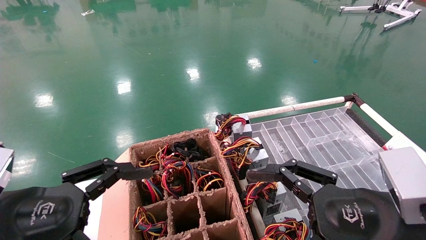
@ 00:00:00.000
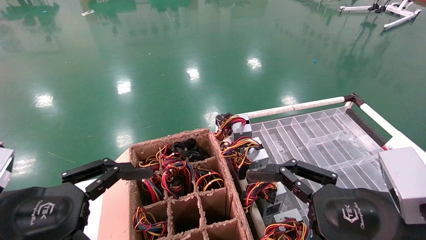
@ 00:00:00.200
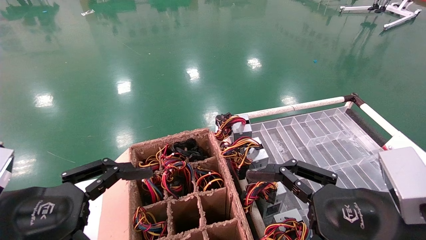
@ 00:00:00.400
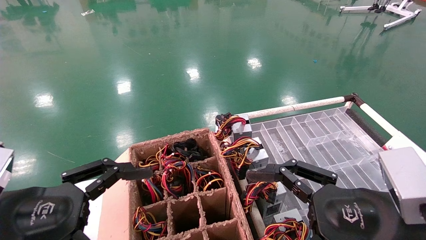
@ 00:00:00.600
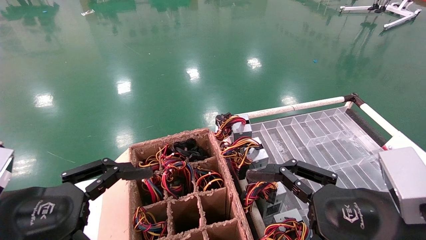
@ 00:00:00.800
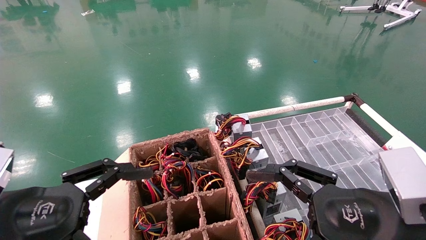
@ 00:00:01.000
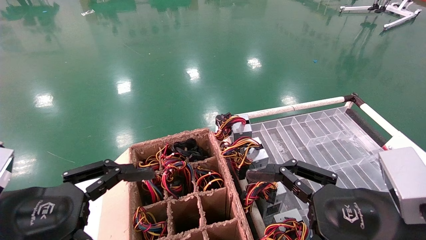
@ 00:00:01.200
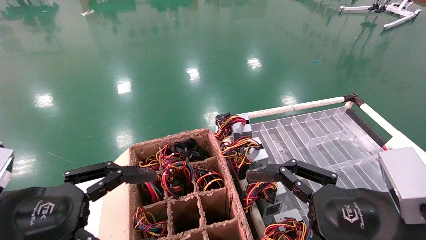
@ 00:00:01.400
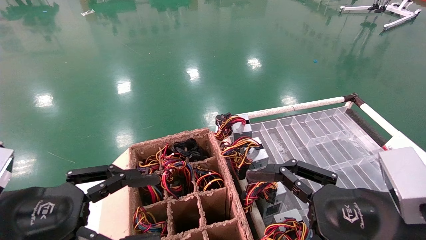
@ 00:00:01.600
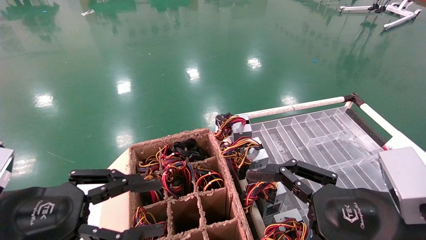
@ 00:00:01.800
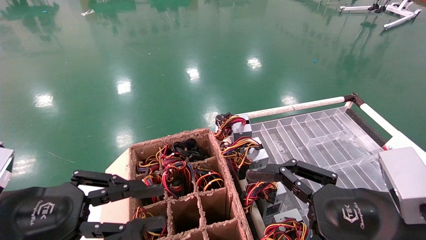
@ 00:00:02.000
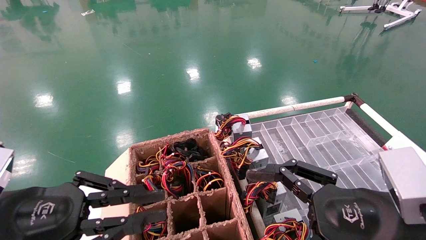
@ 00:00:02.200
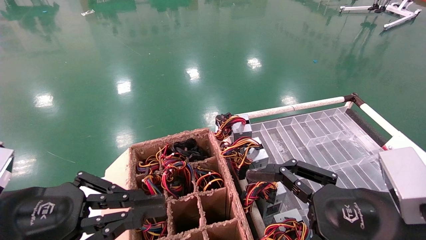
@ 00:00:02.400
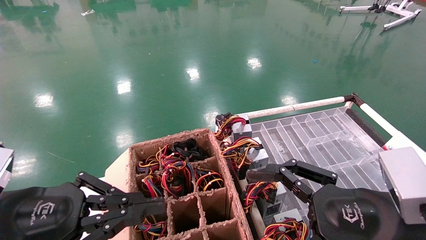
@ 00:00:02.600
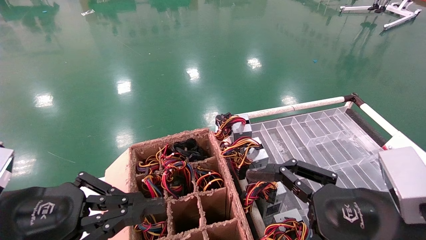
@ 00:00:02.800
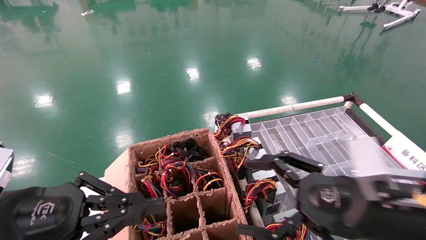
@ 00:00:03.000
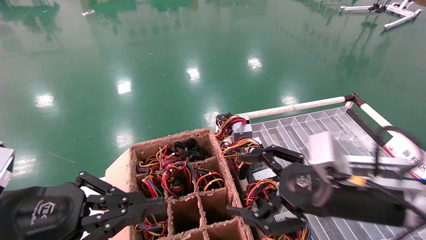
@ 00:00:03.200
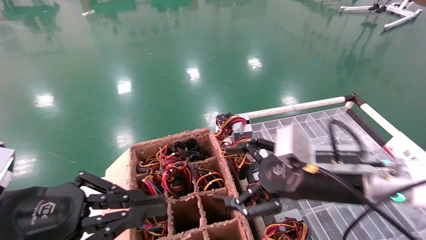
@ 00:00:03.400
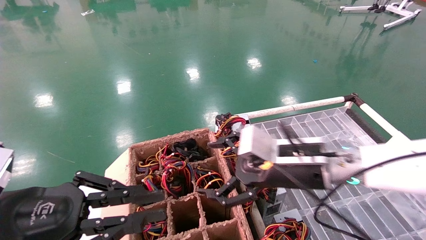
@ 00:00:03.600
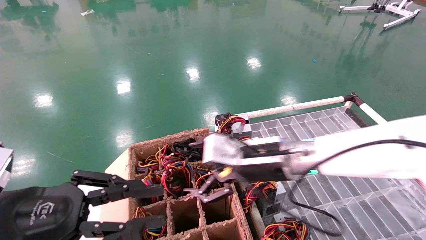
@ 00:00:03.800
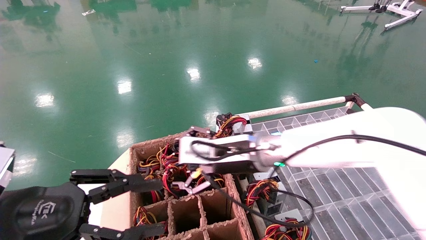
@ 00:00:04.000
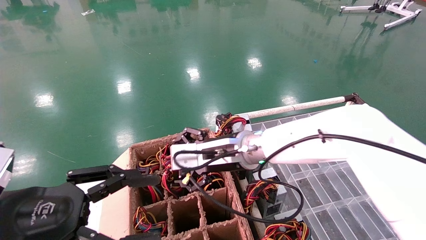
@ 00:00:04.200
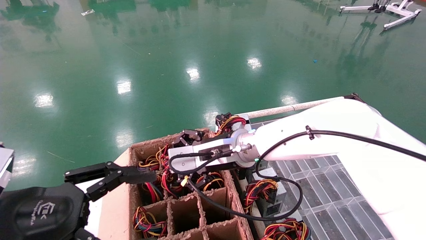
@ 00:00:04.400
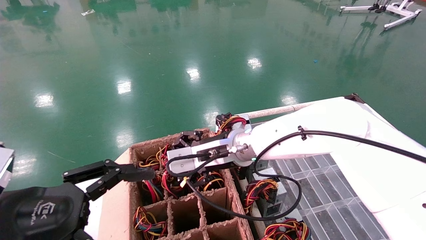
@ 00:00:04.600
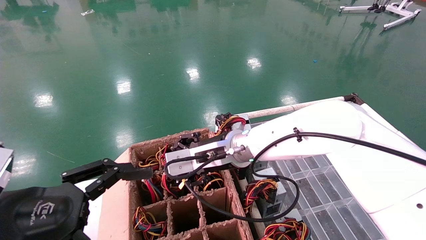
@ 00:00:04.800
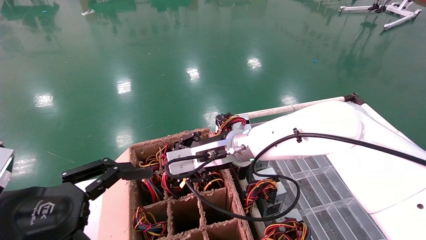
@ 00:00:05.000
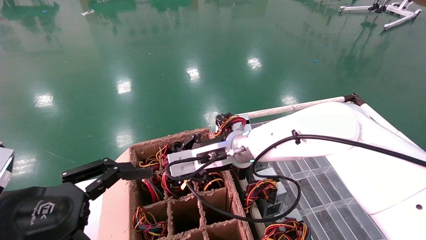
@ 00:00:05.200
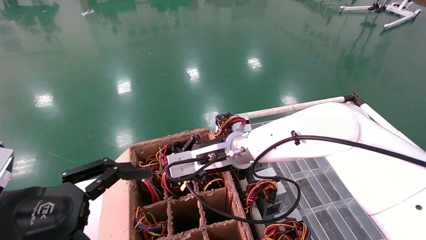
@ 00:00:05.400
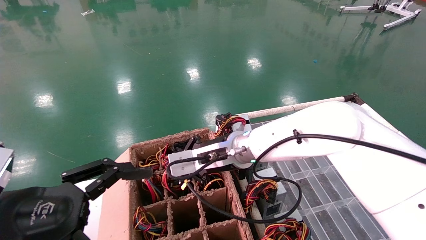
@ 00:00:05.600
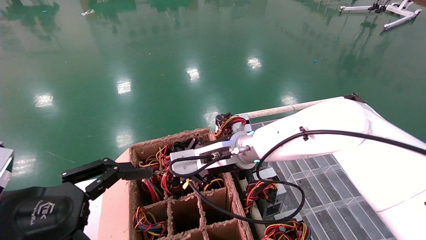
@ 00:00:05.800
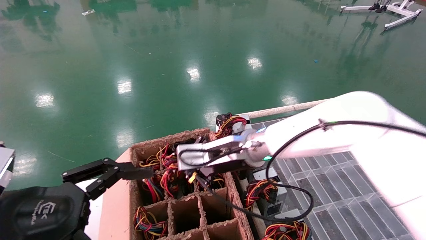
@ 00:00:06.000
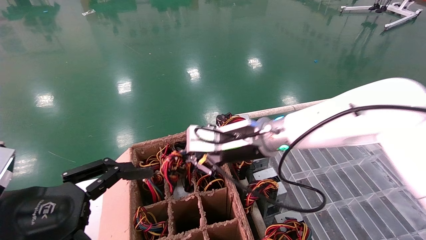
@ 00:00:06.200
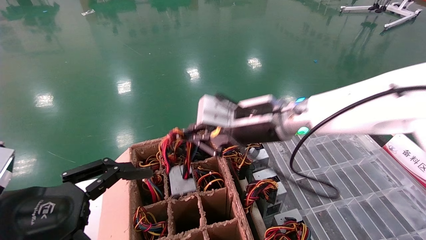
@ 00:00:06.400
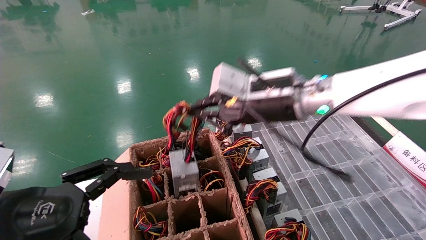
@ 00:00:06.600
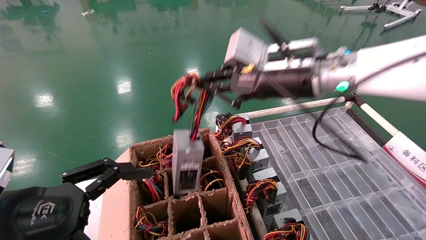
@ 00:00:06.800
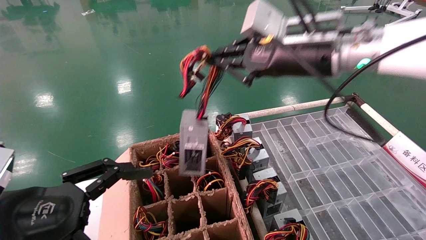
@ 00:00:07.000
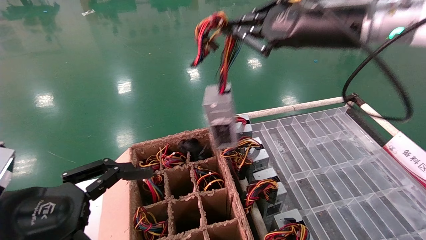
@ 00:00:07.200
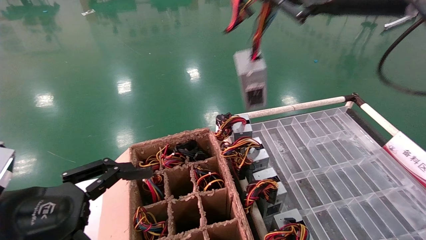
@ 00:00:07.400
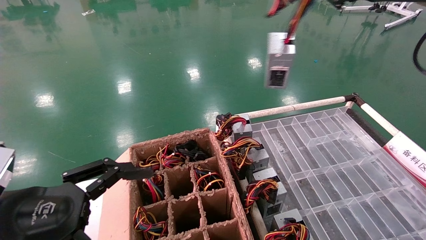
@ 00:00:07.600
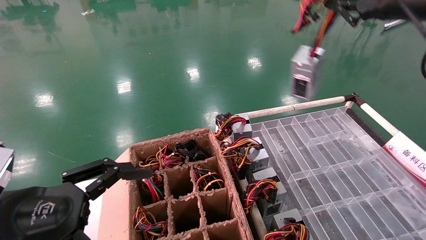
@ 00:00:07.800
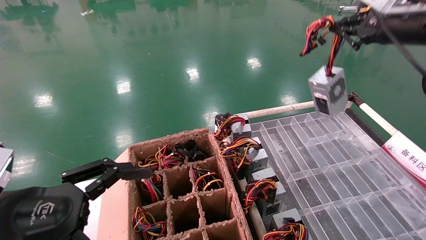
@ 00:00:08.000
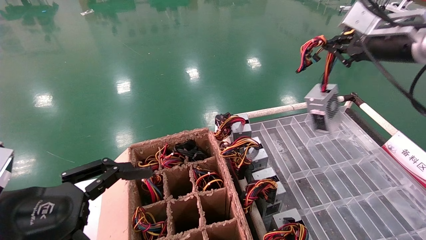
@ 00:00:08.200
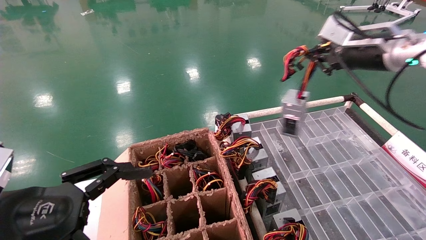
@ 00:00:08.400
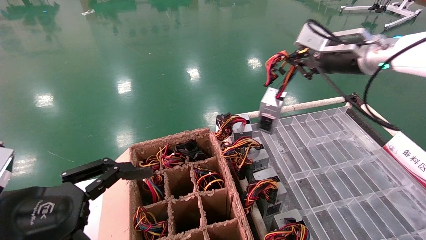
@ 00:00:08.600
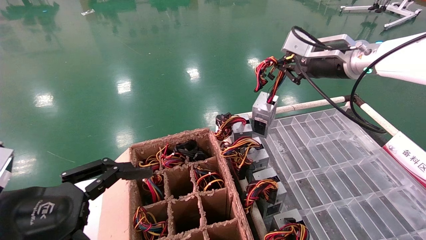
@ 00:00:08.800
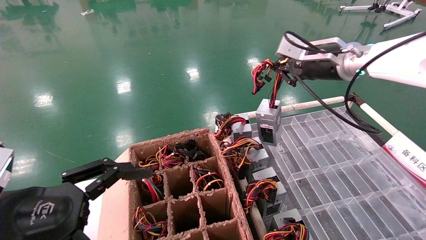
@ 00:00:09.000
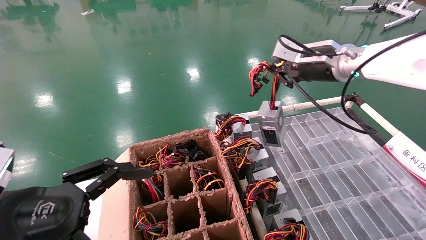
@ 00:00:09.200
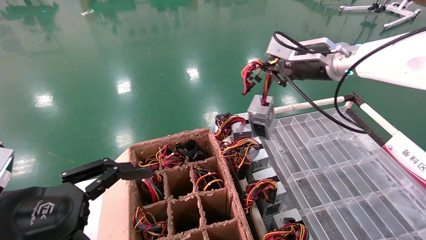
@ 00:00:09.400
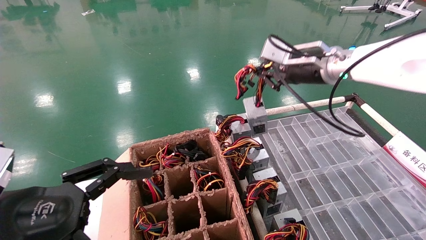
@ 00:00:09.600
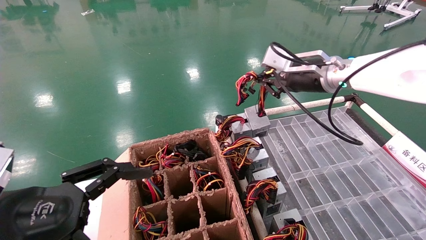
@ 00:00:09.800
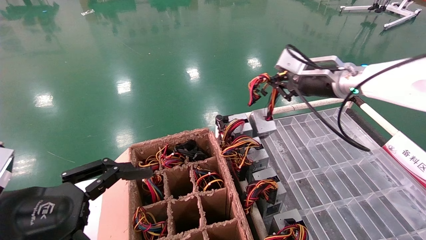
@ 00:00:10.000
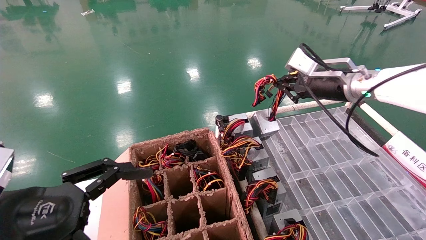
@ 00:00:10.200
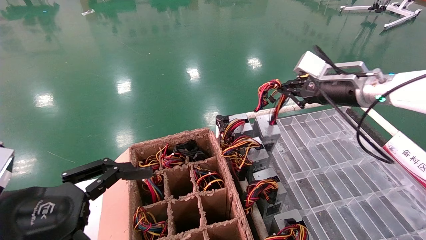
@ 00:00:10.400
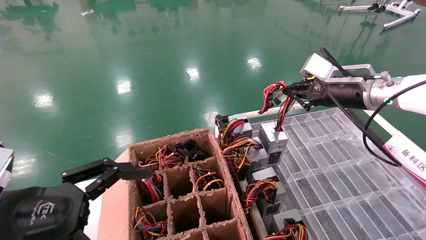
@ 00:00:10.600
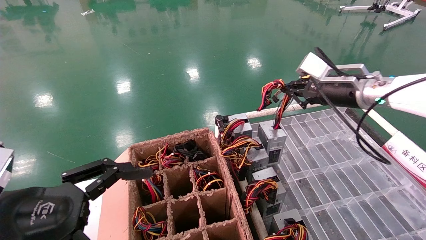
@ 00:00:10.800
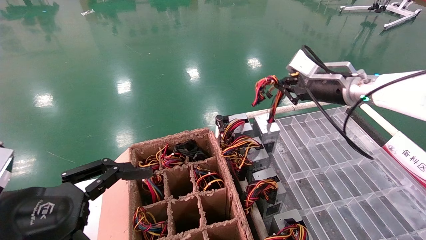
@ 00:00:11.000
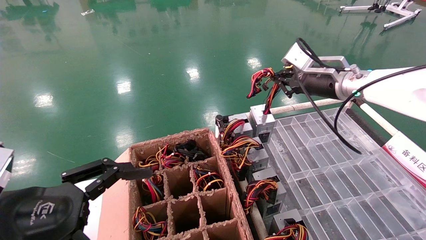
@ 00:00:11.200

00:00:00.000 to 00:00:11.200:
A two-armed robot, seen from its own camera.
Step, 00:00:02.800 to 00:00:05.600: Grab and lift the power supply from the large box.
00:00:00.000 to 00:00:01.600: The two grippers keep their place.
00:00:01.600 to 00:00:03.200: The left gripper closes its fingers. The right gripper goes about 10 cm forward.
00:00:03.200 to 00:00:04.800: The left gripper opens. Meanwhile the right gripper heads to the left and forward, covering some 25 cm.
00:00:04.800 to 00:00:06.400: The right gripper travels upward and to the right by roughly 10 cm, and closes.
00:00:06.400 to 00:00:08.000: The right gripper goes roughly 30 cm to the right and upward.
00:00:08.000 to 00:00:09.600: The right gripper goes approximately 15 cm to the left, downward and forward.
00:00:09.600 to 00:00:11.200: The right gripper changes place by some 5 cm.

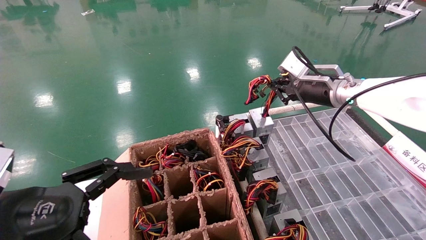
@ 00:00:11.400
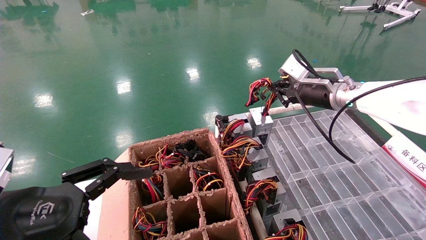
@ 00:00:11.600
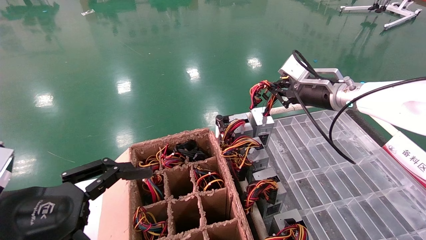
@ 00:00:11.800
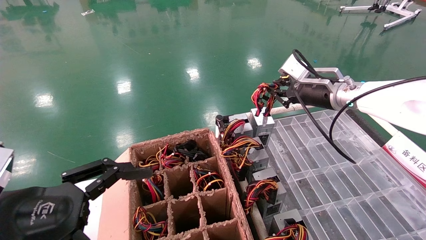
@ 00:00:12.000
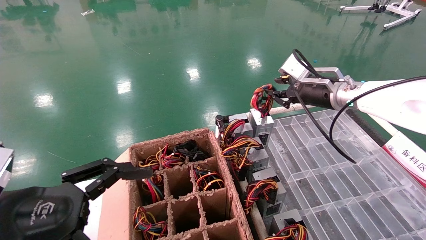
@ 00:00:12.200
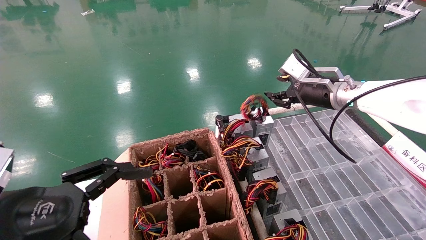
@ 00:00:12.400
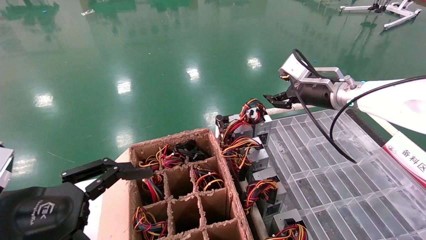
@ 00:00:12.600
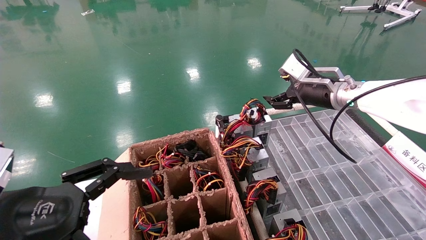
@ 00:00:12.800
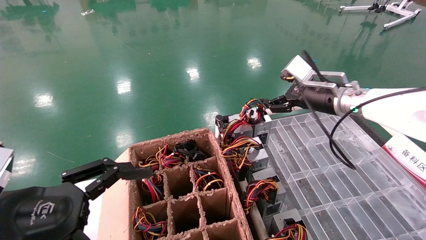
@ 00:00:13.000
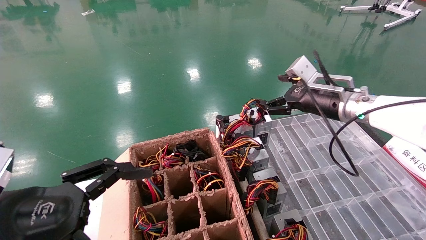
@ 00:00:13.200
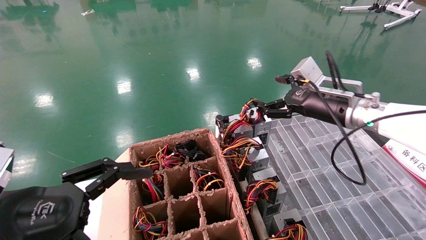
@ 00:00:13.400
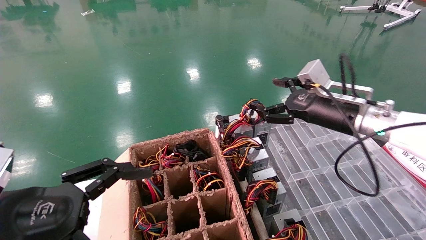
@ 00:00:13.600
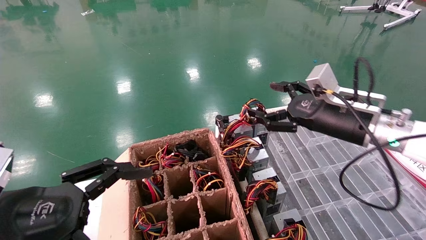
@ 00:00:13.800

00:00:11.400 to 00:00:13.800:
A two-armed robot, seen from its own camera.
00:00:11.400 to 00:00:12.600: The right gripper opens.
00:00:12.600 to 00:00:13.800: The right gripper travels backward by some 5 cm, and opens its fingers.
